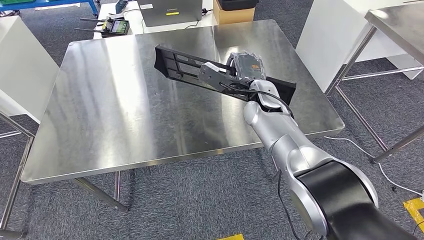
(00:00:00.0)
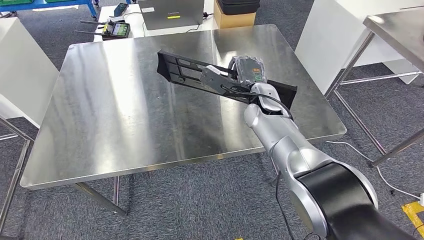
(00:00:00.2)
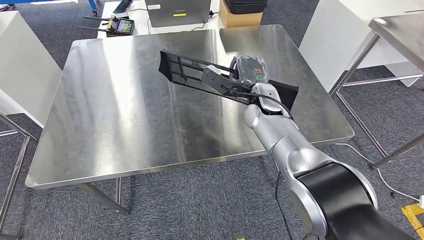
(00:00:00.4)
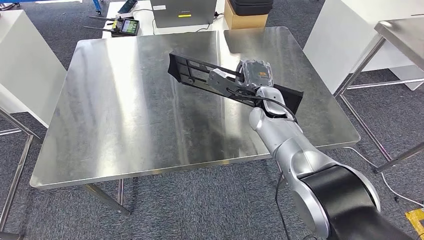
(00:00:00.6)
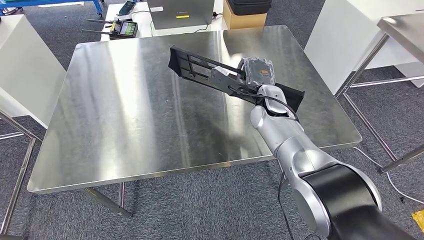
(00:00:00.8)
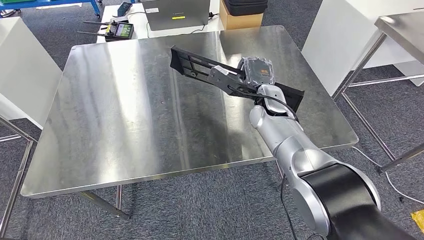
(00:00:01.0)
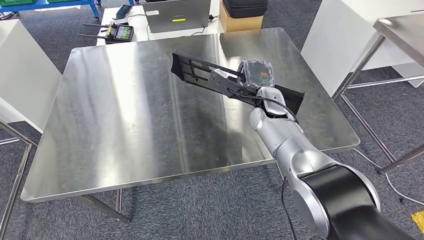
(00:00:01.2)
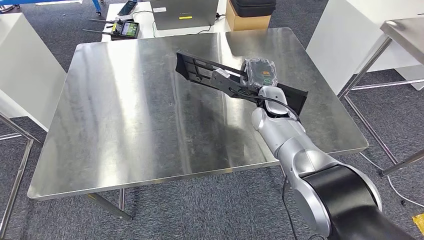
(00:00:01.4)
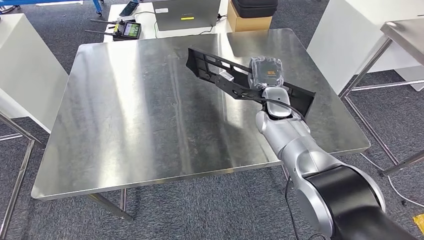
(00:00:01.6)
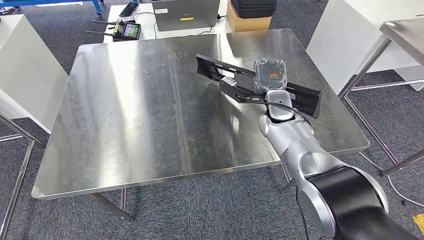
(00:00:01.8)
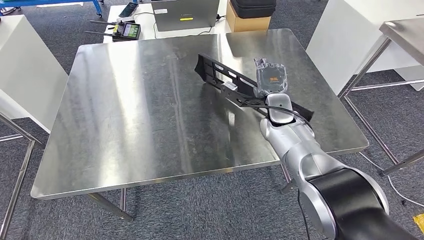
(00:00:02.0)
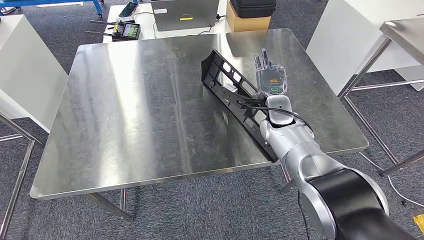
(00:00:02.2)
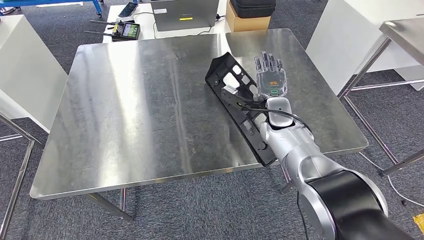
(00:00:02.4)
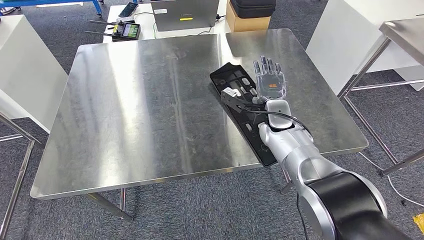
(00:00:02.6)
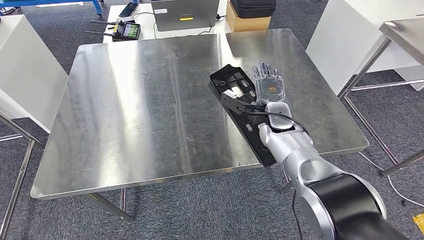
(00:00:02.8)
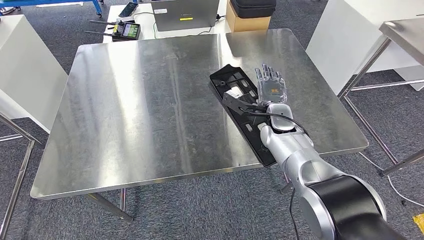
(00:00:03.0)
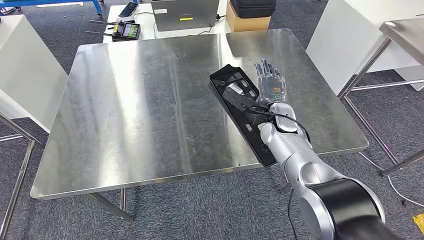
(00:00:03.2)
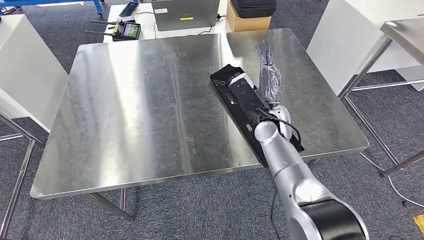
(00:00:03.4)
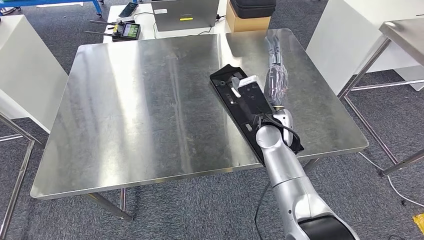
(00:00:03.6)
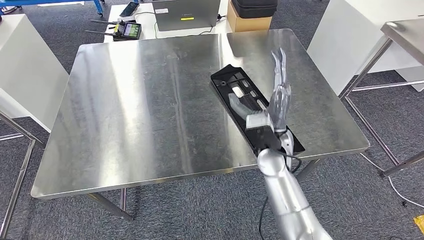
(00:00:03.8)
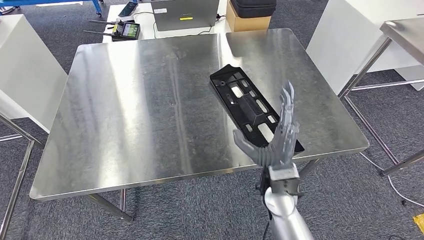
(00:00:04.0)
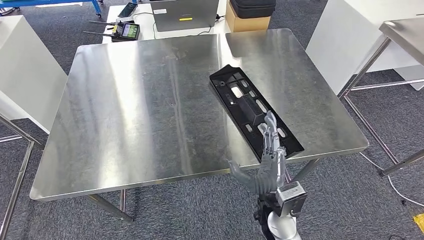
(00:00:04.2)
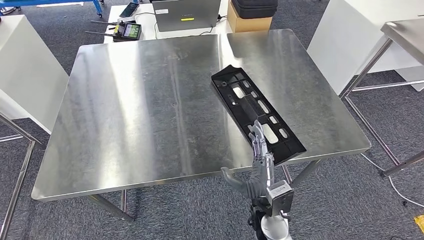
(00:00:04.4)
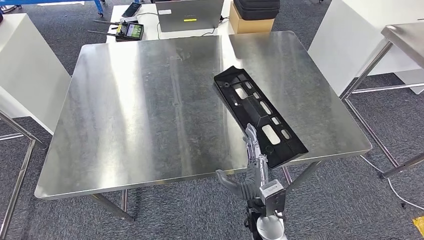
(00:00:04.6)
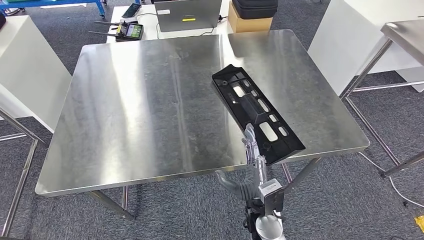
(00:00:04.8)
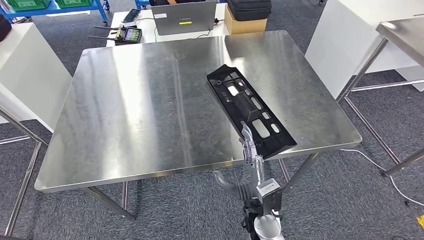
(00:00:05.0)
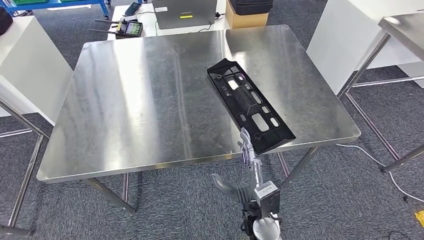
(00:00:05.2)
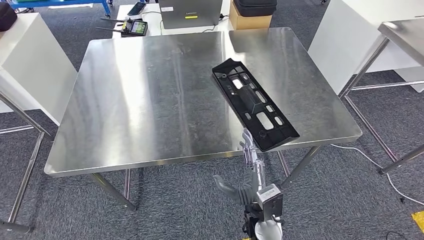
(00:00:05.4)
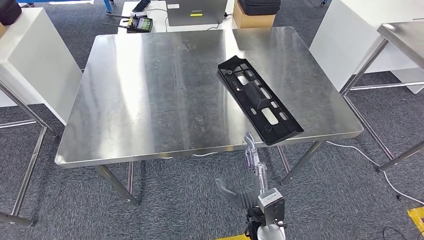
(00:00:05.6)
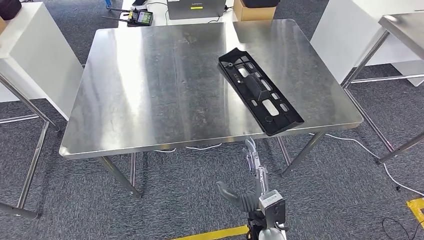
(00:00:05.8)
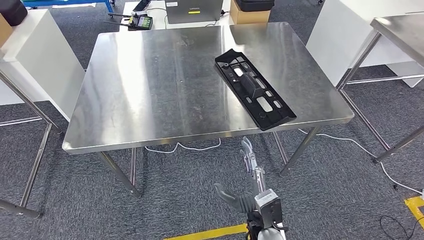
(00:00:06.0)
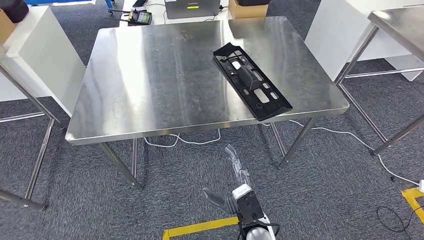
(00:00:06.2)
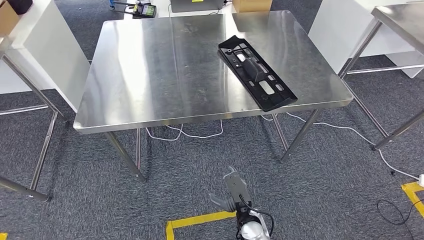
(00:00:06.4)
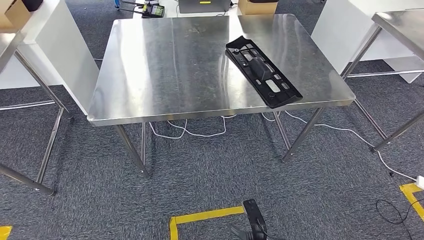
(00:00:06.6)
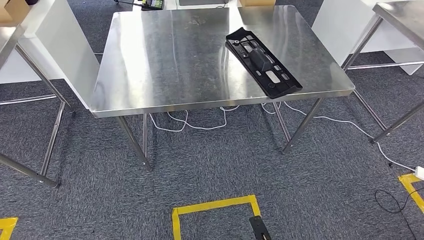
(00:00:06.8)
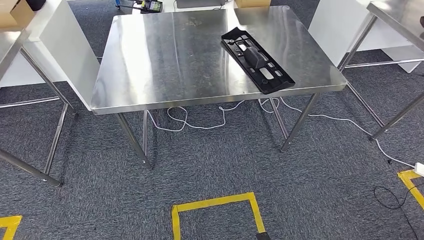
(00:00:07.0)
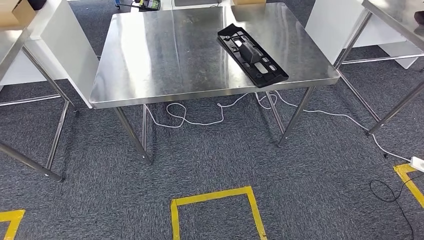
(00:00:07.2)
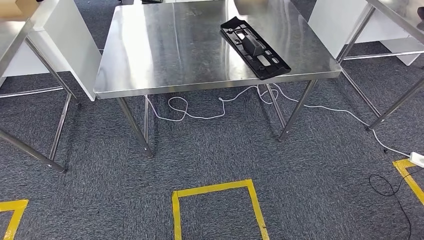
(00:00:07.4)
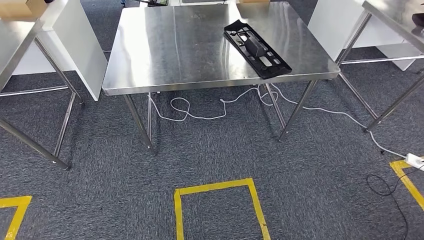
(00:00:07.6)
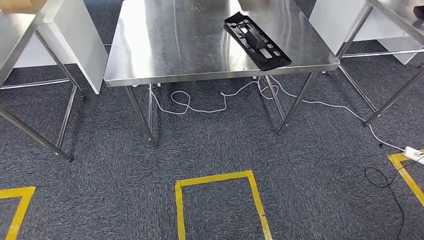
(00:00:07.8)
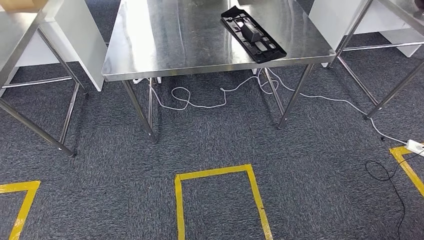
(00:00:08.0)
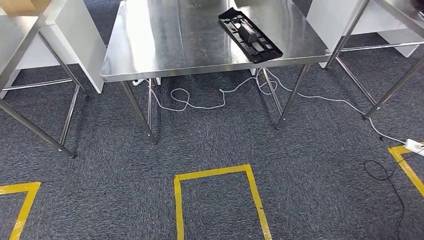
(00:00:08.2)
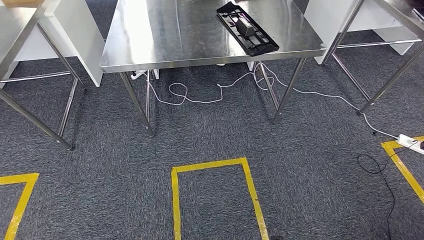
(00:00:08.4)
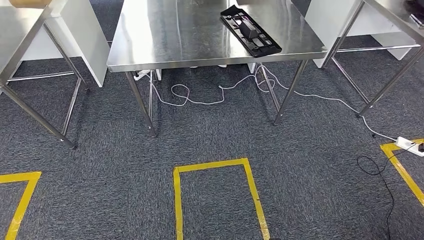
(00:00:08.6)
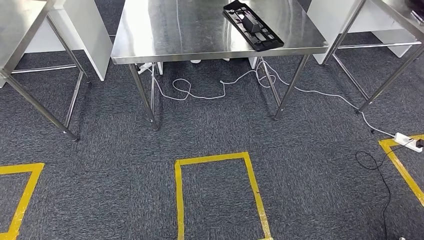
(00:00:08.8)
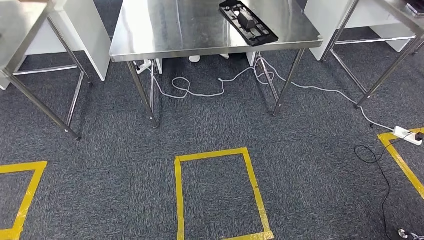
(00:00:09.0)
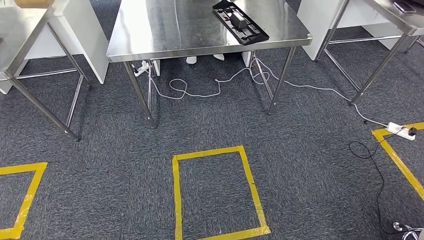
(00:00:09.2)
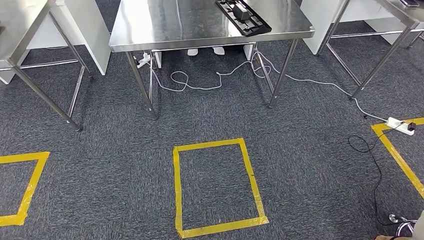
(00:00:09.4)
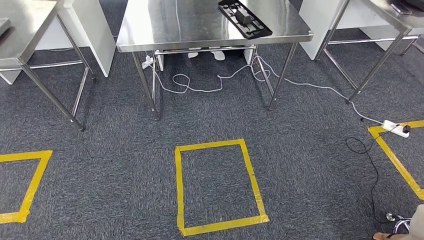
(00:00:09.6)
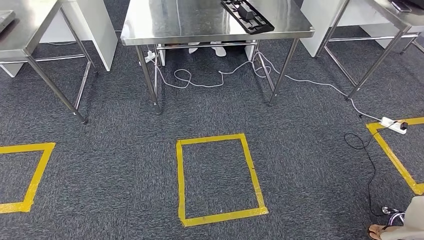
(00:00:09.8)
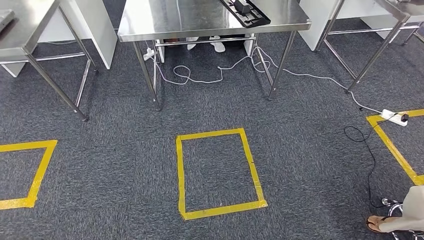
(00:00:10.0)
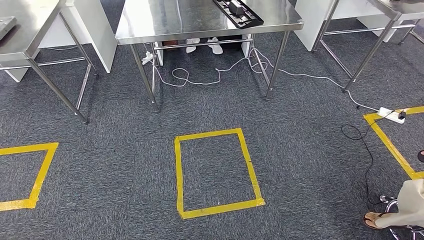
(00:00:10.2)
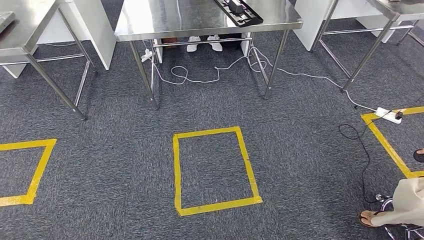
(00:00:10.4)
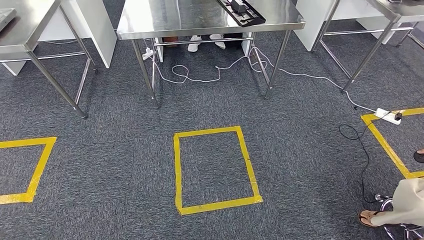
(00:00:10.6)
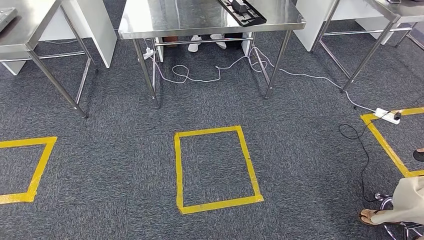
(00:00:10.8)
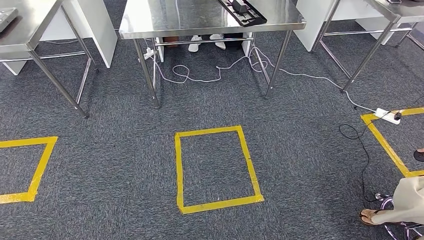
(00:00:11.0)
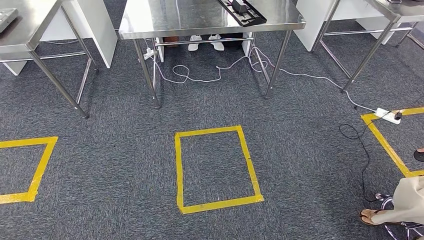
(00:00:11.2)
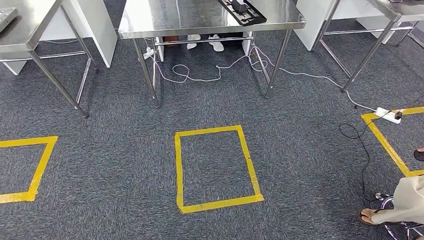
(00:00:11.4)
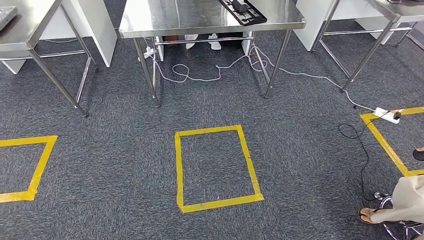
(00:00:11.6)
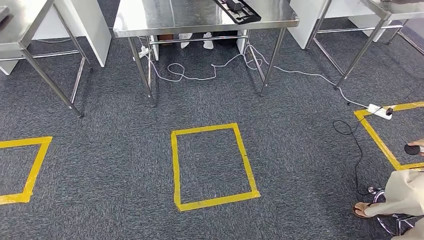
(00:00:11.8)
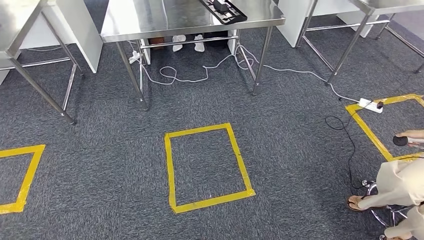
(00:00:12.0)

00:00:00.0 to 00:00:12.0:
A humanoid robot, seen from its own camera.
Step, 00:00:00.0 to 00:00:08.4: Insert the large material into the corresponding slot on the workbench.
00:00:01.6 to 00:00:03.0: The right hand changes place by some 5 cm.
00:00:03.0 to 00:00:04.4: The right hand travels backward and downward by roughly 25 cm.

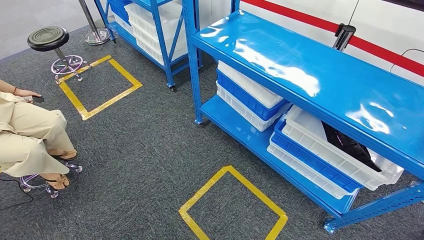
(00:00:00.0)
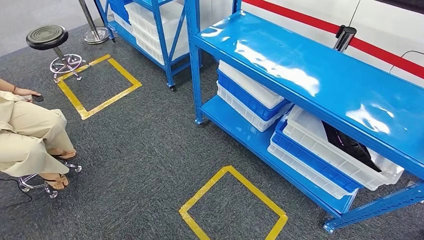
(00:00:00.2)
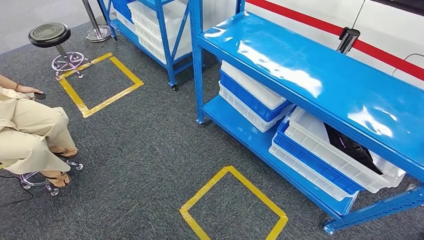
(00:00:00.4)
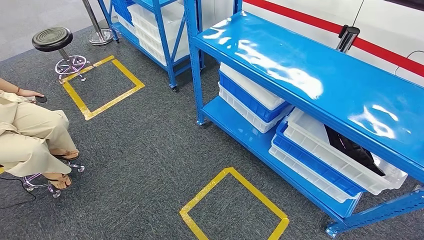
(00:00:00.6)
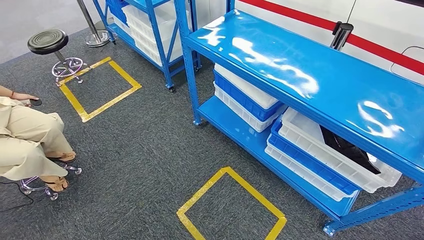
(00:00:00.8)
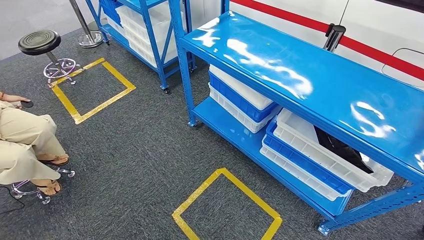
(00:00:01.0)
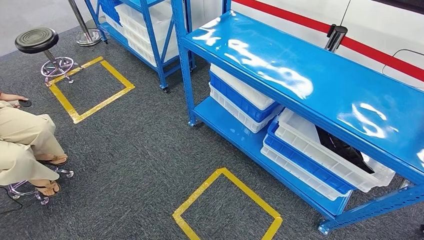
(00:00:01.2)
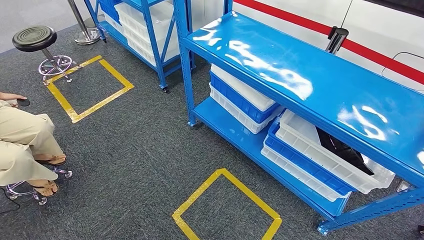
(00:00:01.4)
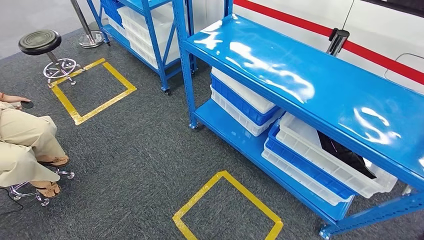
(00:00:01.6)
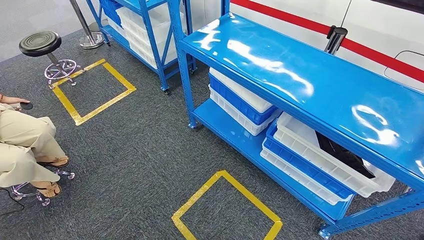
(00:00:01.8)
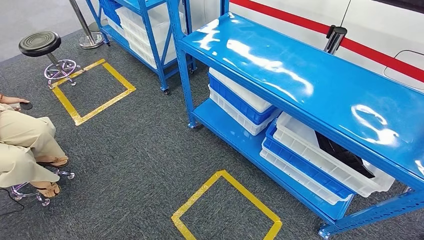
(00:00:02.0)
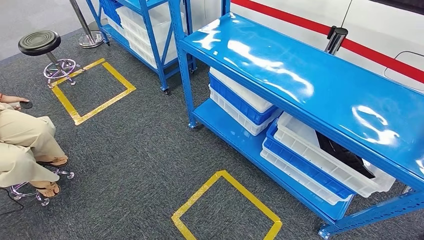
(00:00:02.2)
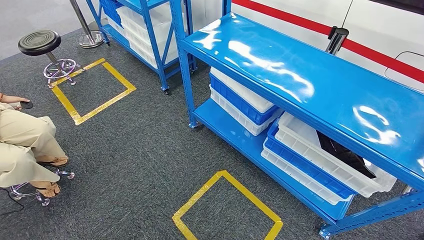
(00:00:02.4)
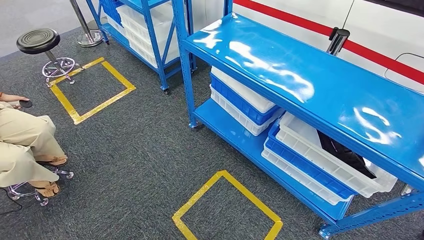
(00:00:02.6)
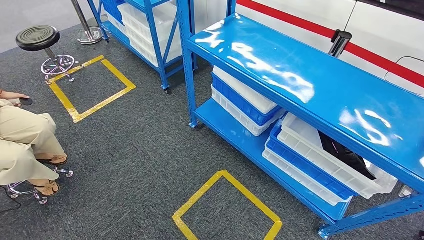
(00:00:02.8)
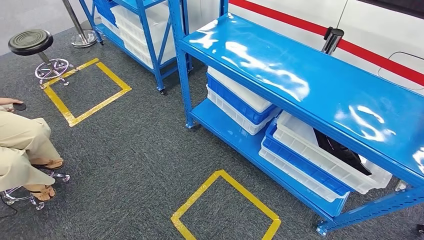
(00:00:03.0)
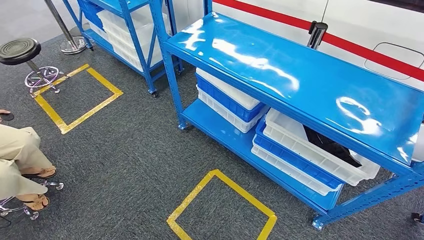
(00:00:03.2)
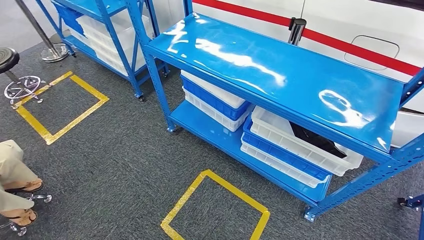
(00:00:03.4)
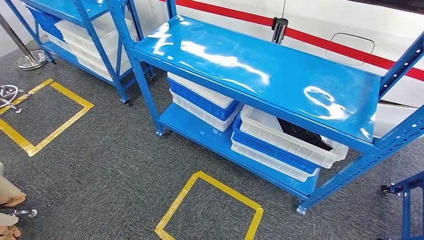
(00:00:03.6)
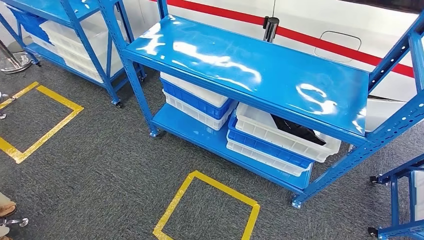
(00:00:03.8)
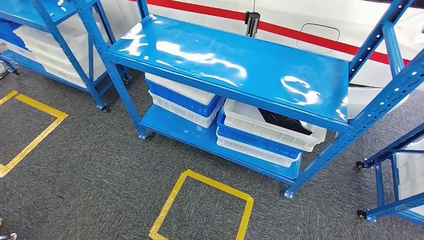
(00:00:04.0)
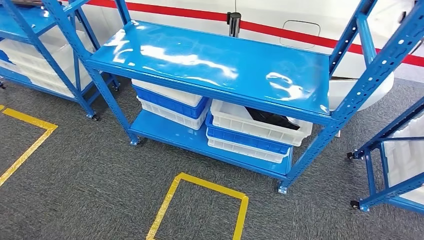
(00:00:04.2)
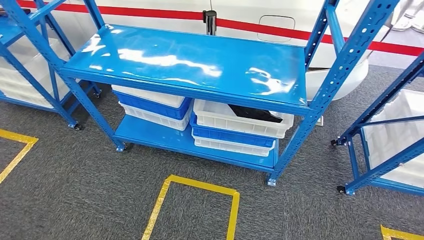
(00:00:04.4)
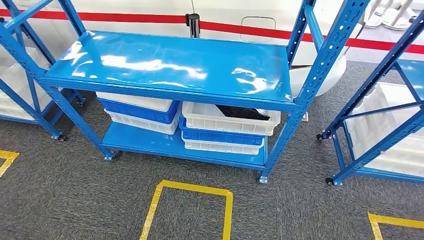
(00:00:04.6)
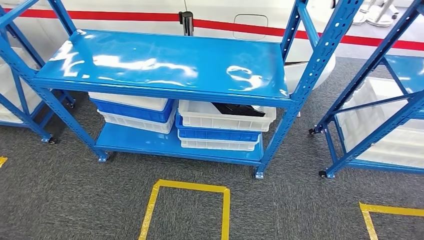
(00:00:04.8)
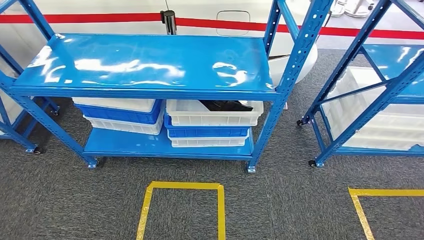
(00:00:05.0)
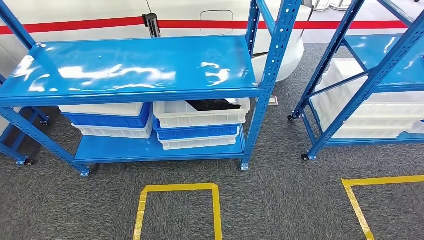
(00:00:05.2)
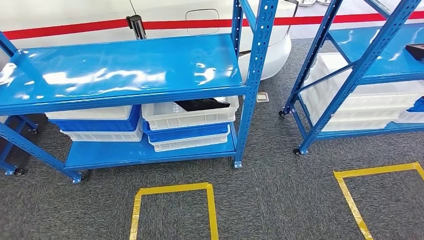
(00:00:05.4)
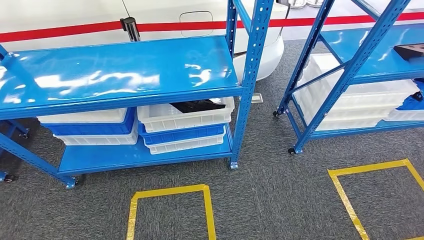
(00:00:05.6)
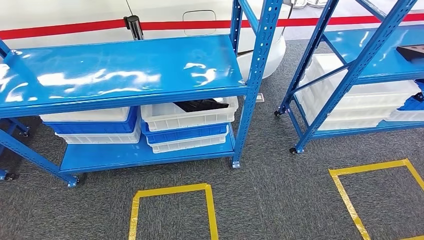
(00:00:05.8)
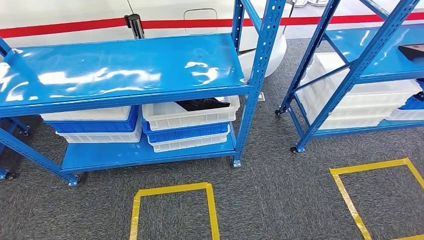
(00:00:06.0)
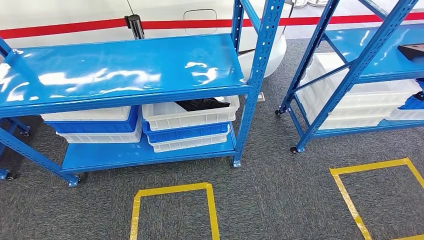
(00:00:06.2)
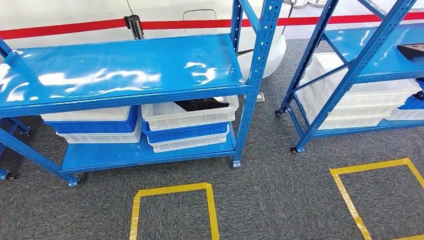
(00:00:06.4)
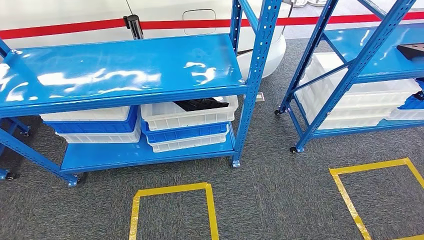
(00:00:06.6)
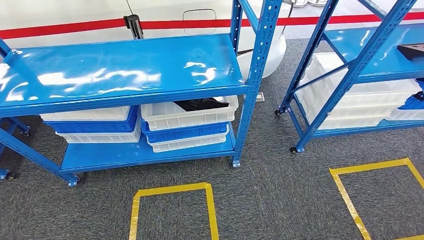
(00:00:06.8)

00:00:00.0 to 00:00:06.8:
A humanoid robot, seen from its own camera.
Step, 00:00:00.0 to 00:00:06.8: Return to the initial position at the shelf.
00:00:01.4 to 00:00:02.8: The two hands keep their place.
00:00:05.4 to 00:00:06.8: The two hands keep their place.
